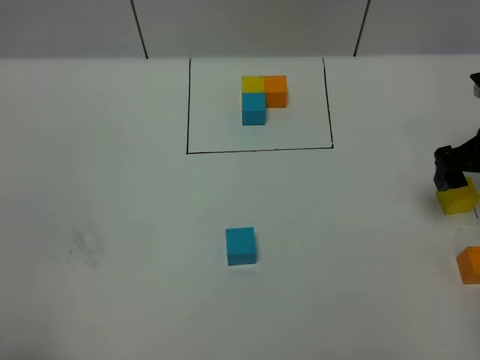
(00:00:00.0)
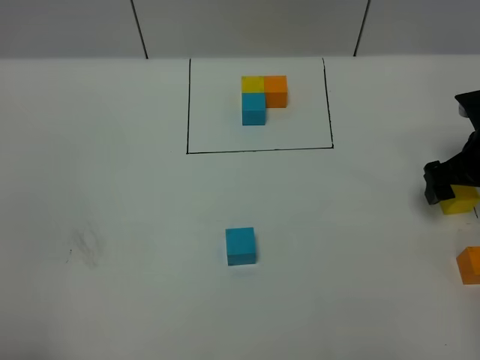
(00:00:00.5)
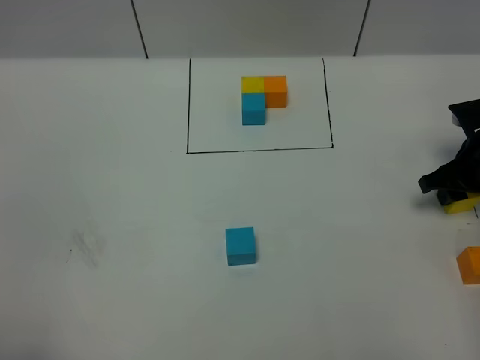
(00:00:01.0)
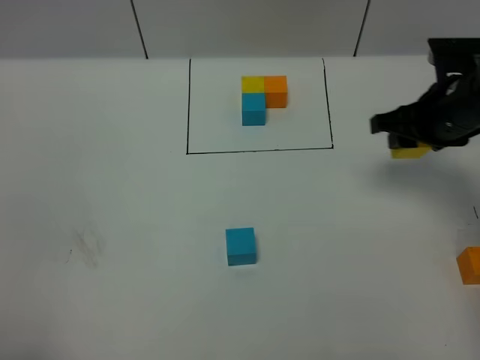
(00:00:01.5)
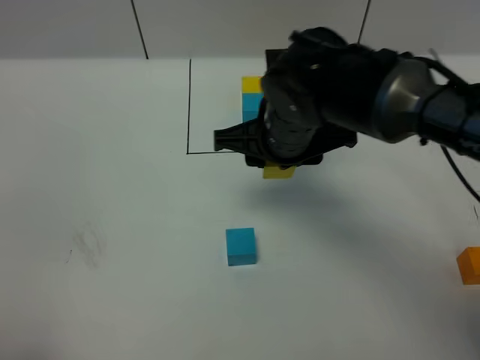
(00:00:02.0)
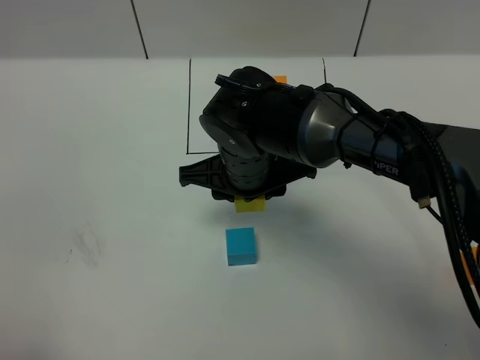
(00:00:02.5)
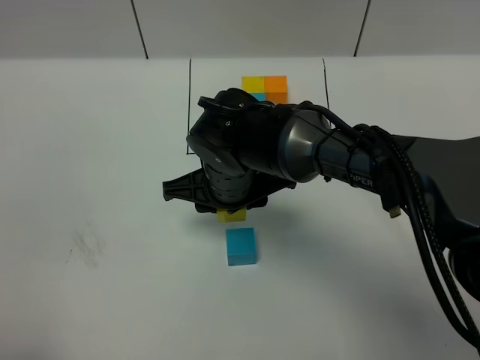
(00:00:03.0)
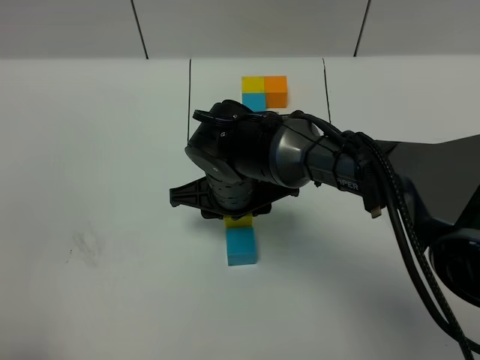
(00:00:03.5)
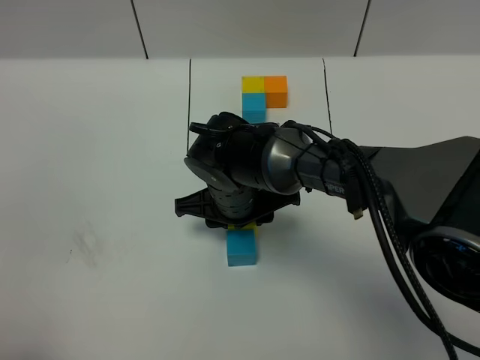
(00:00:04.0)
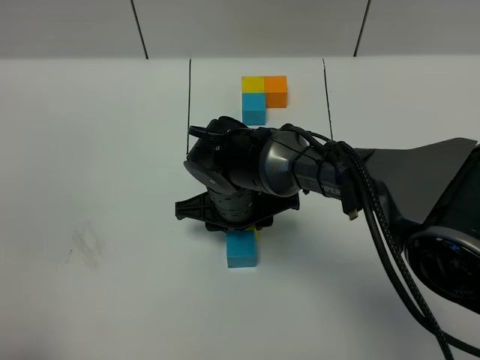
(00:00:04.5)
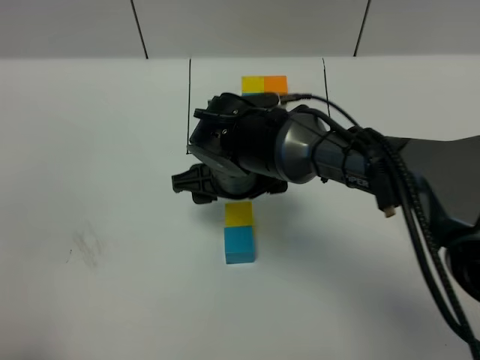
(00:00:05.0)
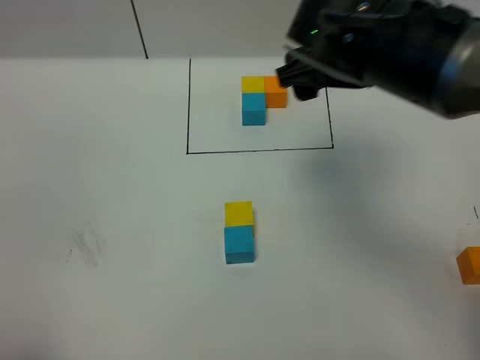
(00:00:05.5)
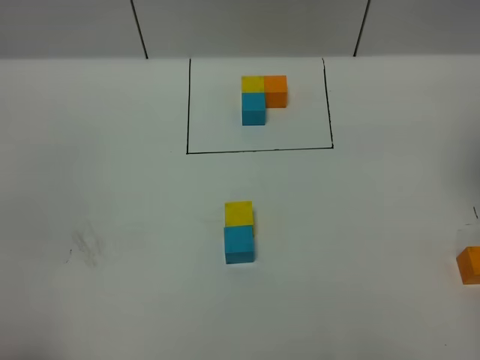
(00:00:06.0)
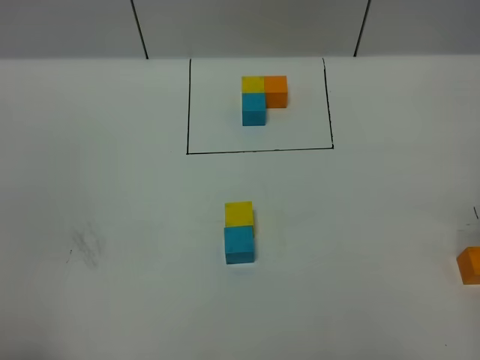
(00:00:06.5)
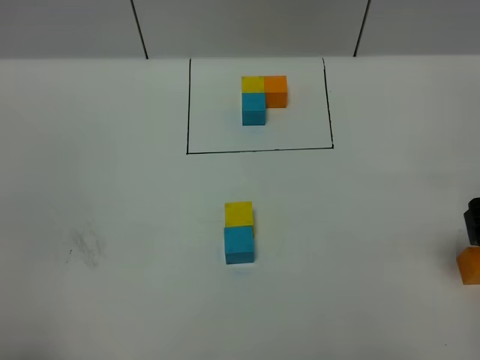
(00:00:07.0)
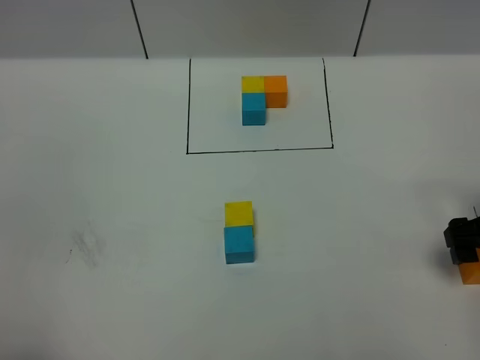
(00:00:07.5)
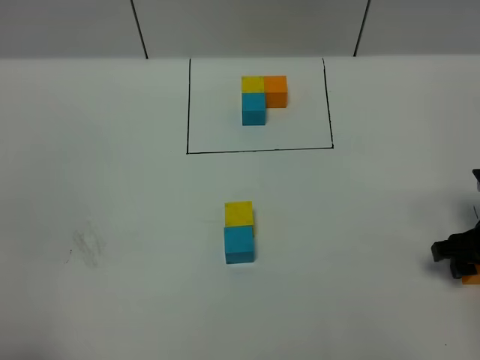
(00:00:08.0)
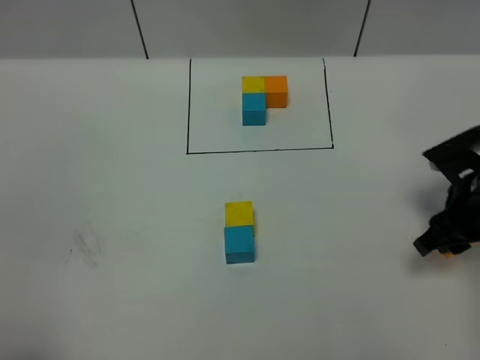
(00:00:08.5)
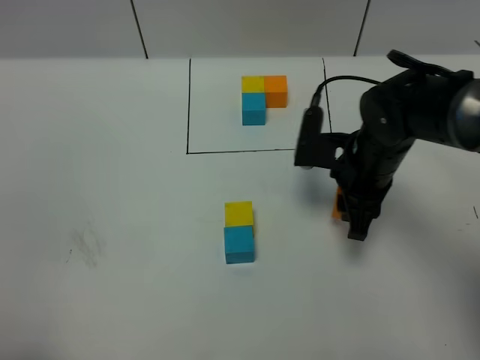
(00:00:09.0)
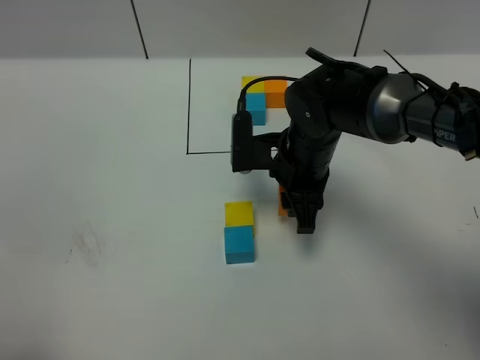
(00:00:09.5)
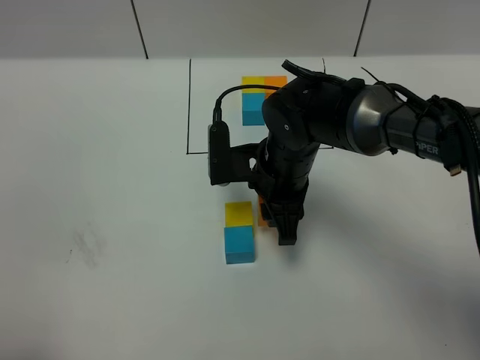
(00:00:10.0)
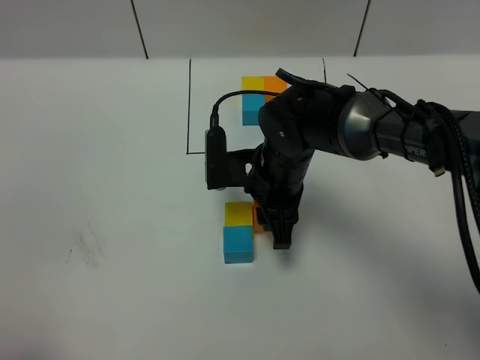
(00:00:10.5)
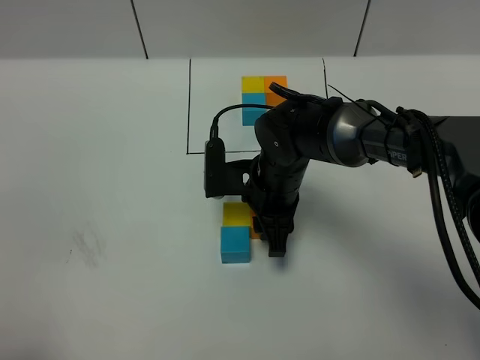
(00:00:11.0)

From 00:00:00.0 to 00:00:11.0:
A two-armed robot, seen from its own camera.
Task of the whole recording: According to the building block template in front, assemble the scattered blocks together.
Step, from 00:00:00.0 to 00:00:05.0: Put the yellow cube on the behind of the blue cube.
From 00:00:00.0 to 00:00:02.0: The right gripper goes approximately 30 cm to the left, and closes up.
From 00:00:02.0 to 00:00:03.5: The right gripper shifts some 10 cm downward and to the left.
From 00:00:03.5 to 00:00:05.5: The right gripper shifts roughly 20 cm upward and to the right, and opens up.
From 00:00:05.5 to 00:00:07.5: The right gripper moves to the right, downward and backward, approximately 25 cm.
From 00:00:07.5 to 00:00:09.0: The right gripper is displaced to the left and forward by roughly 20 cm, and closes up.
From 00:00:09.0 to 00:00:11.0: The right gripper heads to the left, covering some 10 cm.

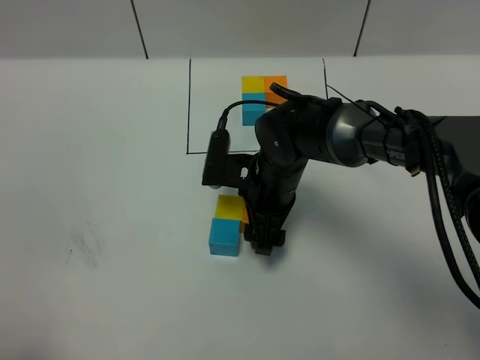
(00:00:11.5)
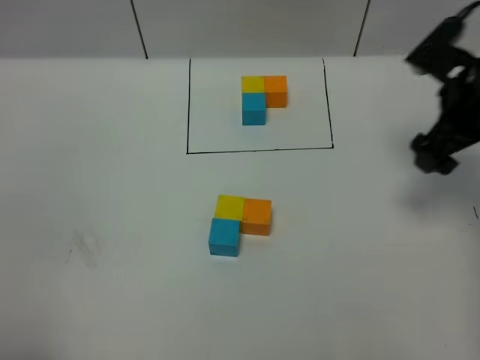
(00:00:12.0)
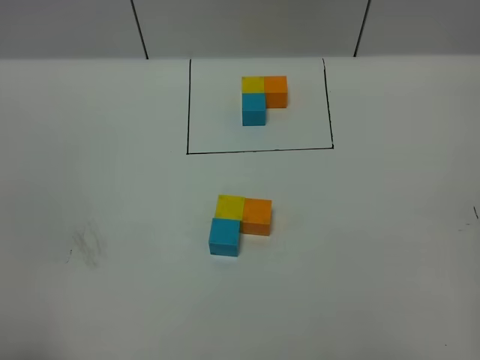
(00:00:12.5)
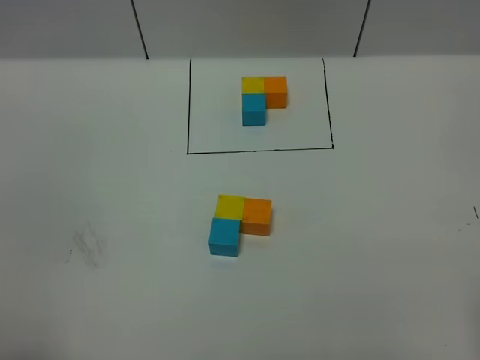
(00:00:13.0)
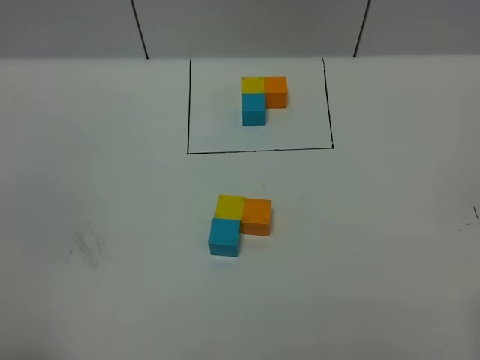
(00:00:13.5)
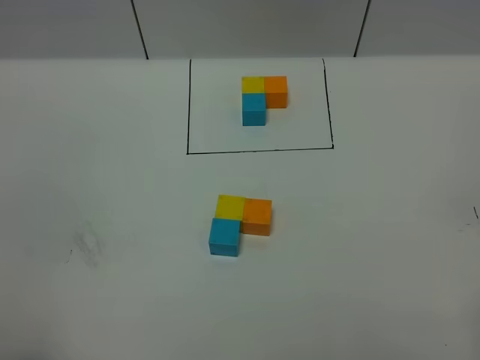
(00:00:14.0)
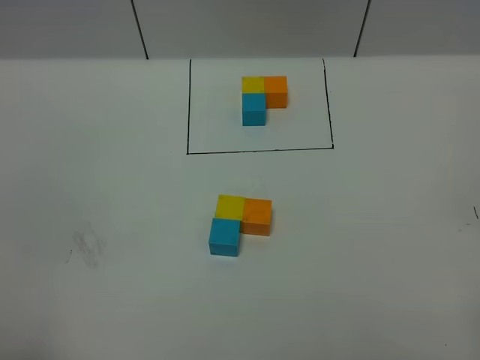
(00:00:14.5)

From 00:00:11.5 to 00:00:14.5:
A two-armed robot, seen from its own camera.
Task of the whole recording: According to the building block template in front, assemble the scattered blocks together.
From 00:00:11.5 to 00:00:13.0: The right gripper moves backward, to the right and upward, roughly 40 cm.

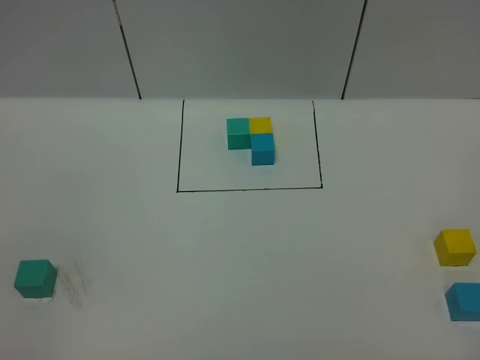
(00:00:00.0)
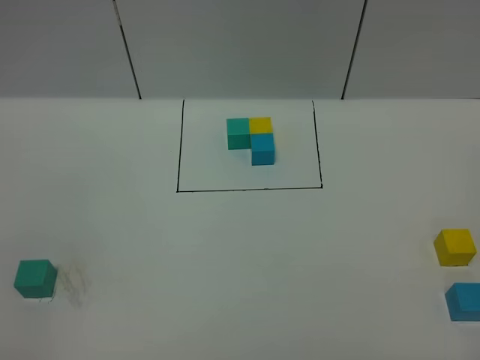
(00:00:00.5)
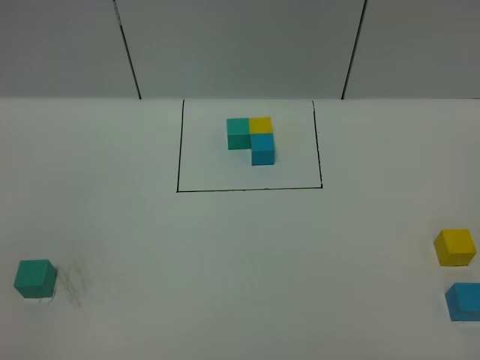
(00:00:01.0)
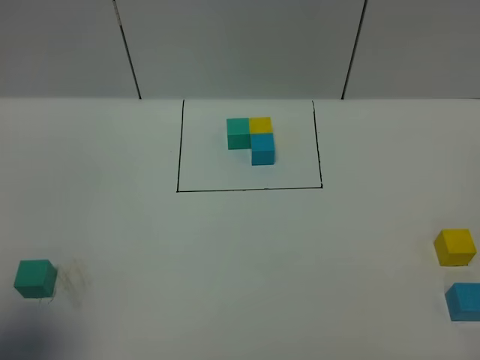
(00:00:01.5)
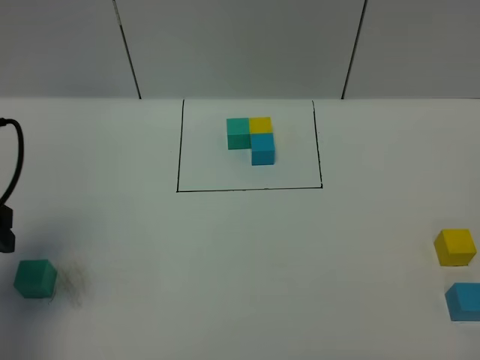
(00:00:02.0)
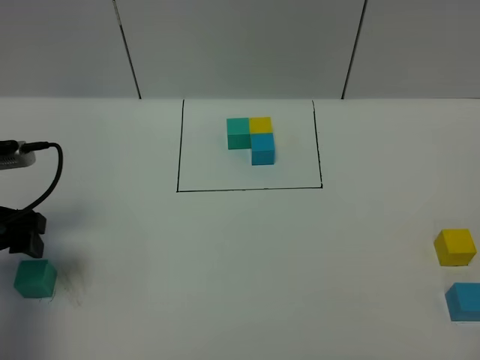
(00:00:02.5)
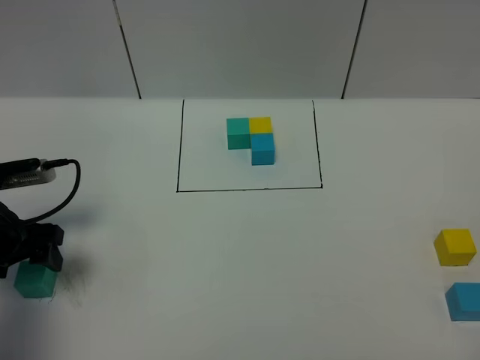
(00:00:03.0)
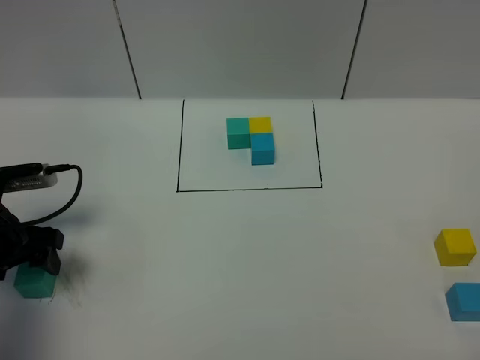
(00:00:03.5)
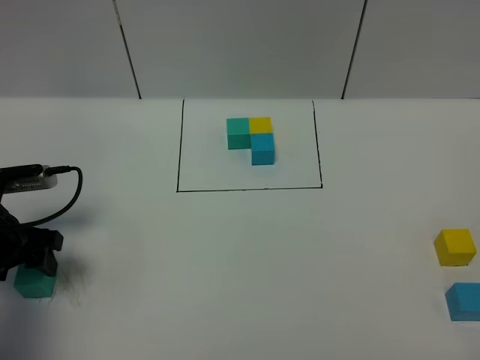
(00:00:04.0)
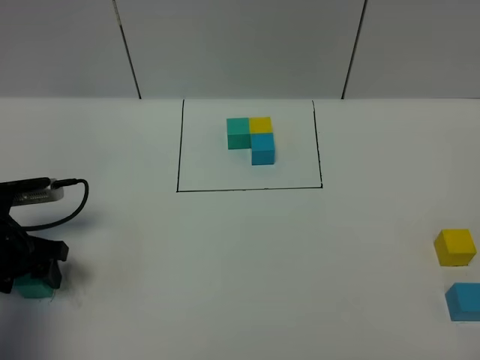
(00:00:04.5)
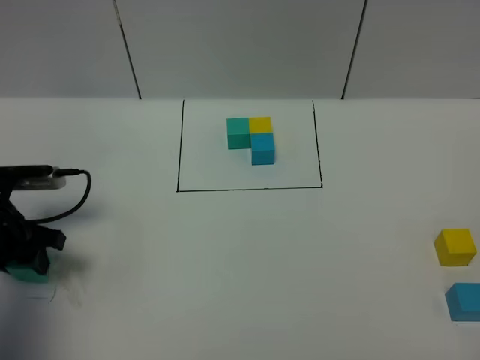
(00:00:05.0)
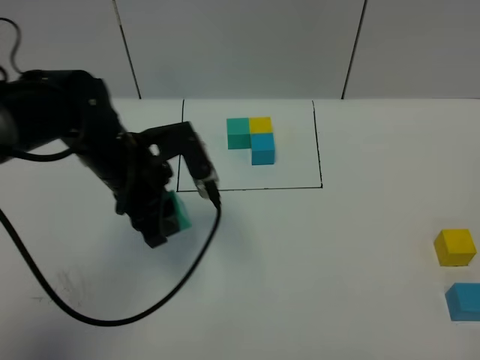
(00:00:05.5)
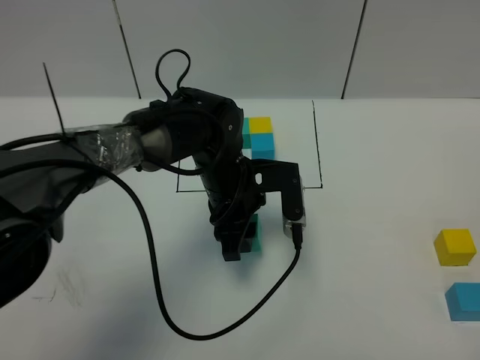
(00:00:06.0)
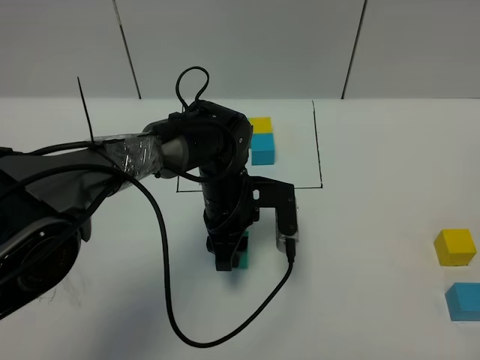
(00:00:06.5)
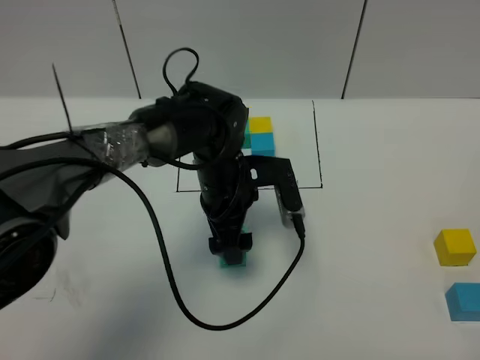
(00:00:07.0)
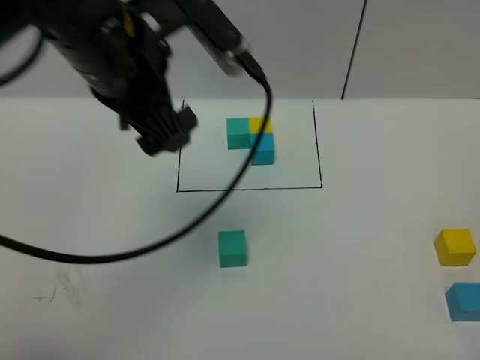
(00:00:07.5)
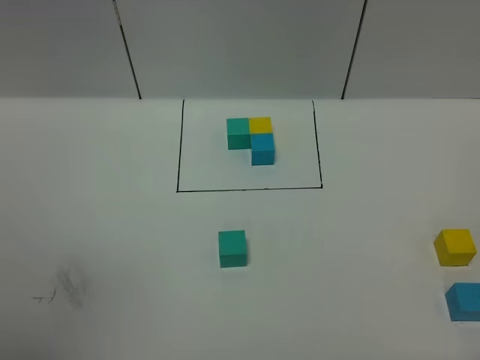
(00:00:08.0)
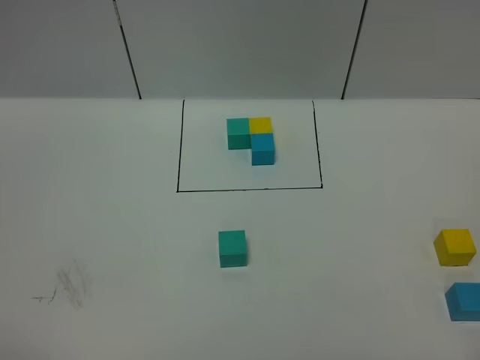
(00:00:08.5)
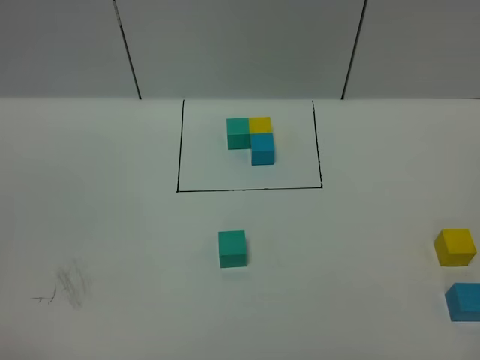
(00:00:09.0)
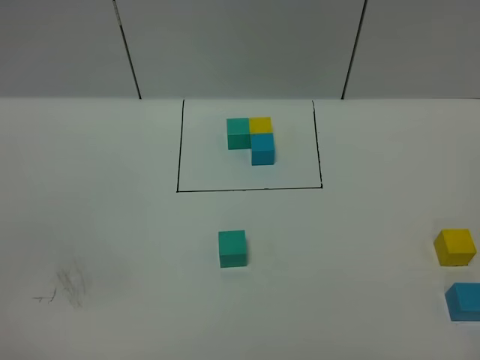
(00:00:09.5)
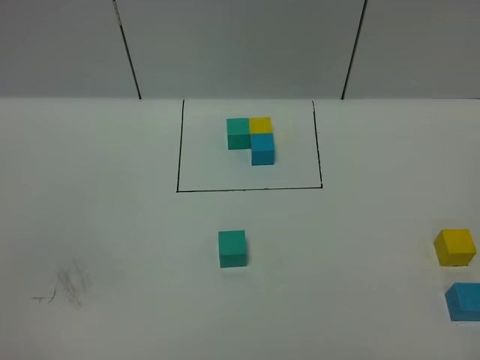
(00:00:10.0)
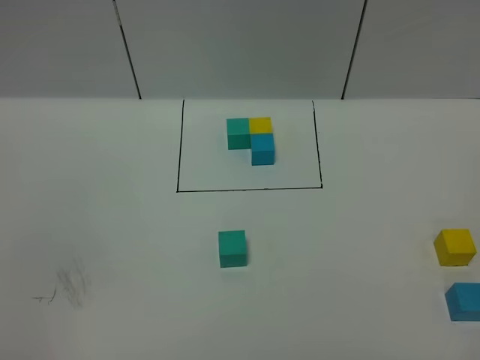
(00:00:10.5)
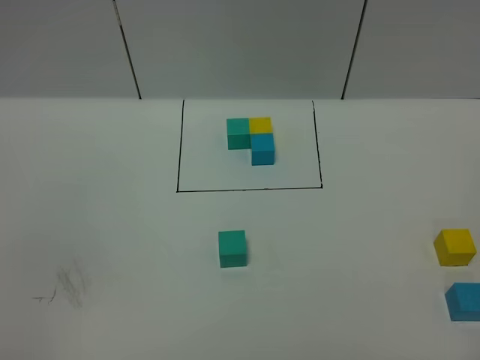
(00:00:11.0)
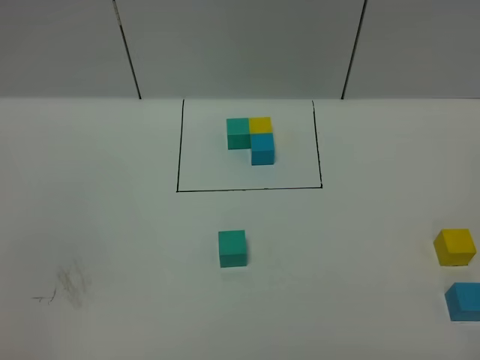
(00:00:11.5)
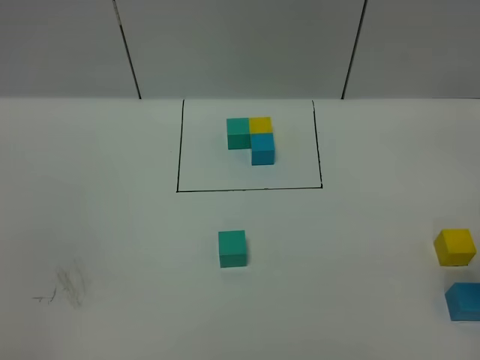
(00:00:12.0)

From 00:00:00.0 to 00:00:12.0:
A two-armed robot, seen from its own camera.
Task of the whole recording: According to the building block template in front, assemble the scattered blocks together.
Step, from 00:00:02.0 to 00:00:06.5: Put the green cube in the center of the table.
From 00:00:00.0 to 00:00:02.0: The left gripper heads forward, covering some 25 cm.
From 00:00:02.0 to 00:00:04.0: The left gripper is displaced downward and forward by some 10 cm.
From 00:00:04.0 to 00:00:06.0: The left gripper moves to the right, roughly 30 cm, and closes.
From 00:00:06.0 to 00:00:08.0: The left gripper shifts about 50 cm upward, backward and to the left, and opens its fingers.
From 00:00:08.0 to 00:00:10.0: The left gripper shifts approximately 25 cm downward.
